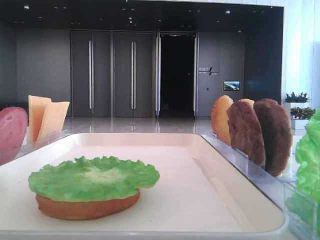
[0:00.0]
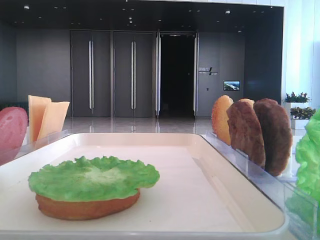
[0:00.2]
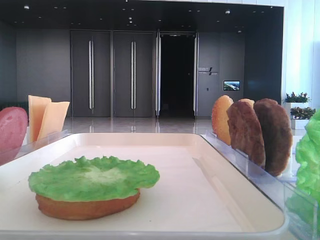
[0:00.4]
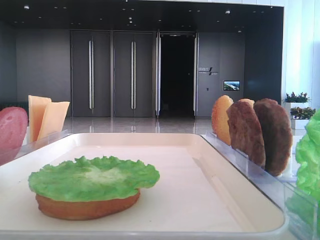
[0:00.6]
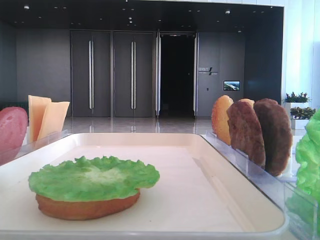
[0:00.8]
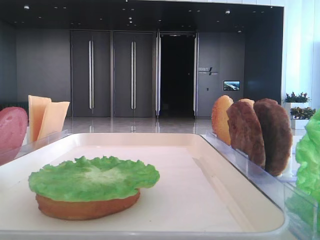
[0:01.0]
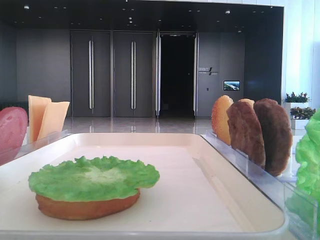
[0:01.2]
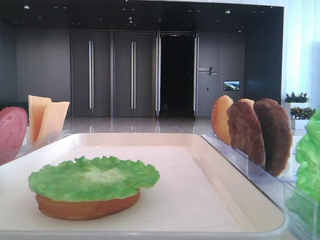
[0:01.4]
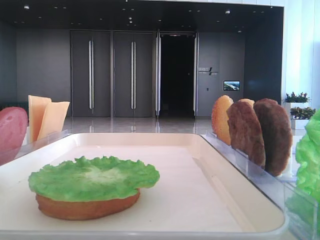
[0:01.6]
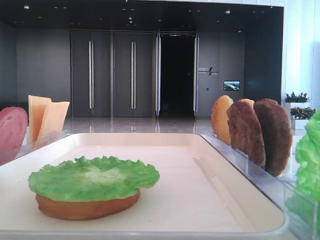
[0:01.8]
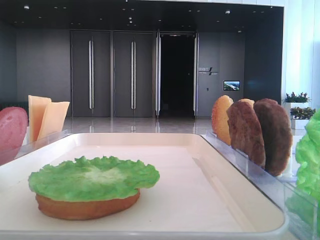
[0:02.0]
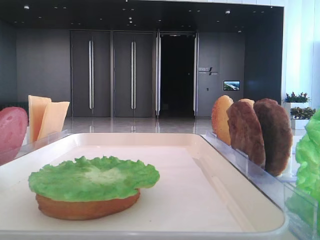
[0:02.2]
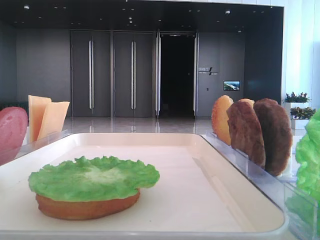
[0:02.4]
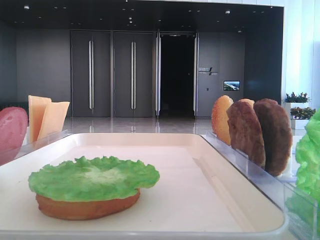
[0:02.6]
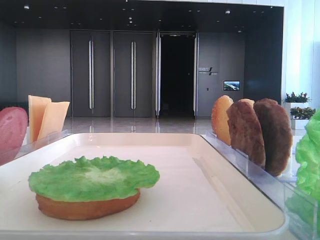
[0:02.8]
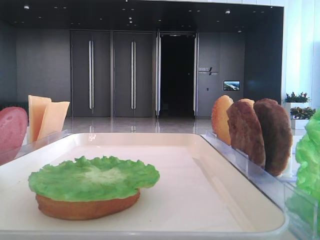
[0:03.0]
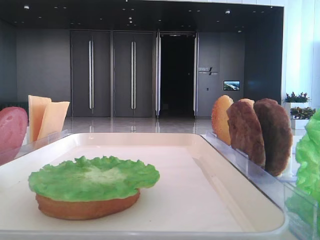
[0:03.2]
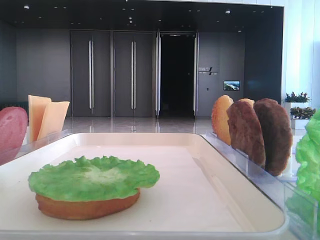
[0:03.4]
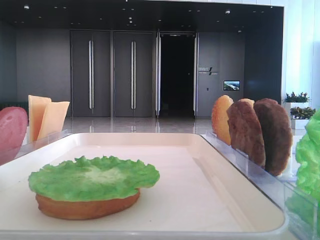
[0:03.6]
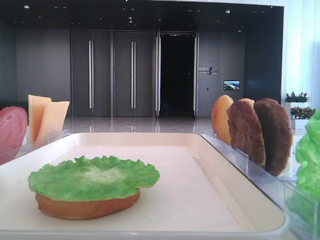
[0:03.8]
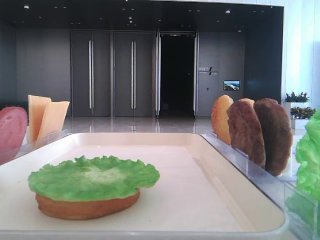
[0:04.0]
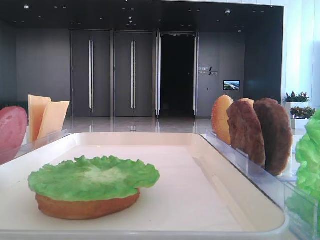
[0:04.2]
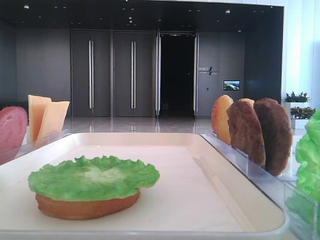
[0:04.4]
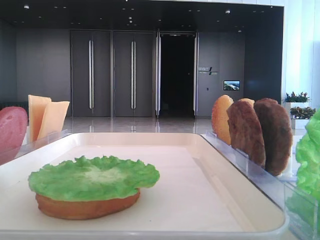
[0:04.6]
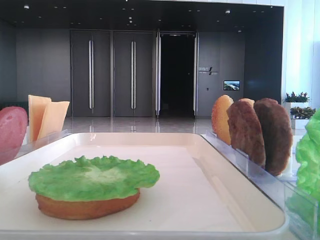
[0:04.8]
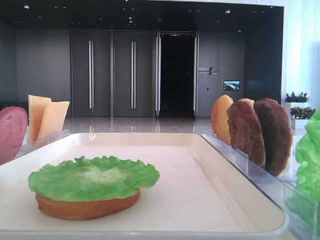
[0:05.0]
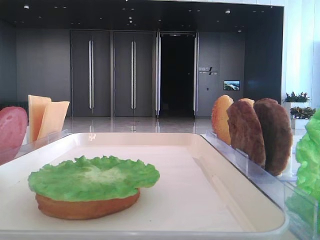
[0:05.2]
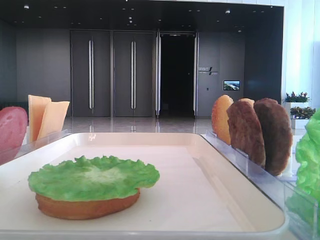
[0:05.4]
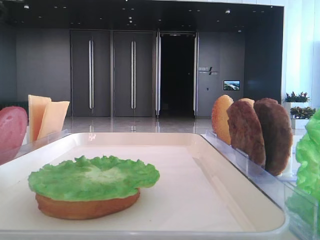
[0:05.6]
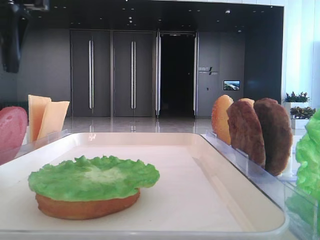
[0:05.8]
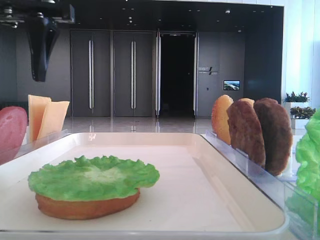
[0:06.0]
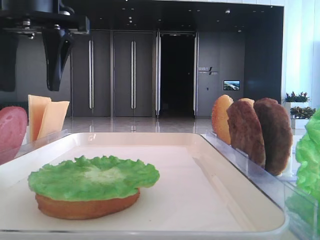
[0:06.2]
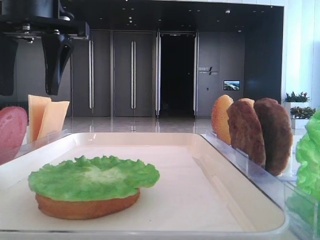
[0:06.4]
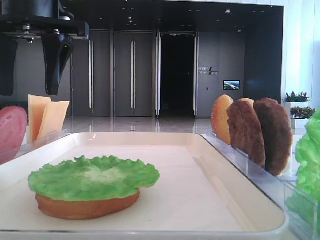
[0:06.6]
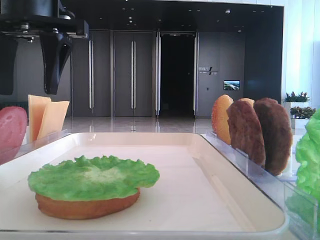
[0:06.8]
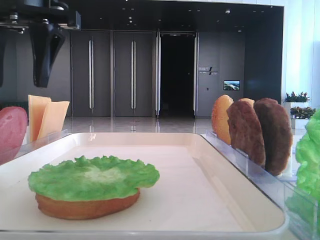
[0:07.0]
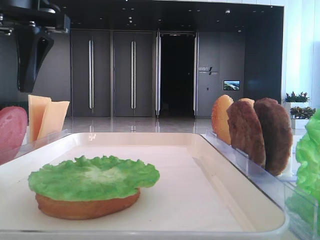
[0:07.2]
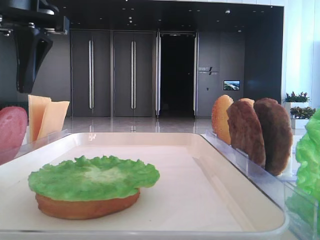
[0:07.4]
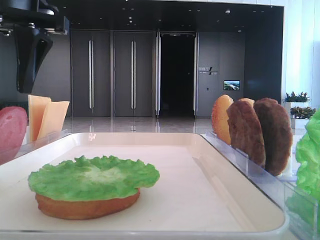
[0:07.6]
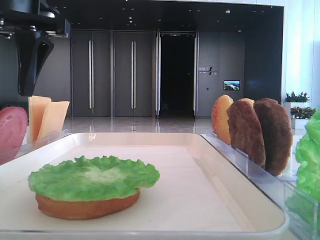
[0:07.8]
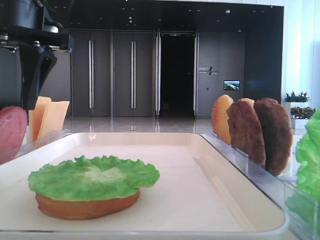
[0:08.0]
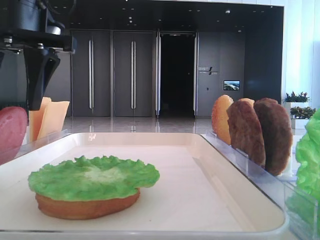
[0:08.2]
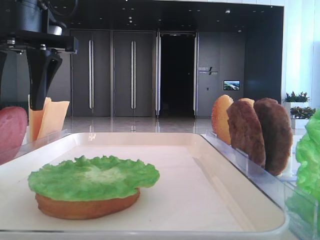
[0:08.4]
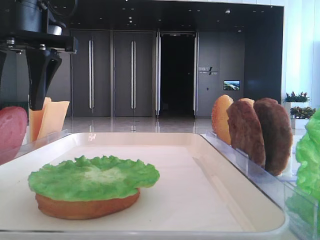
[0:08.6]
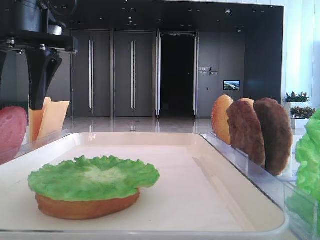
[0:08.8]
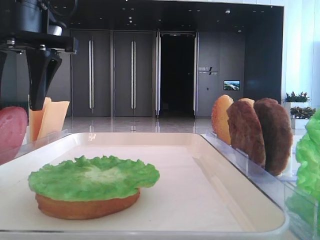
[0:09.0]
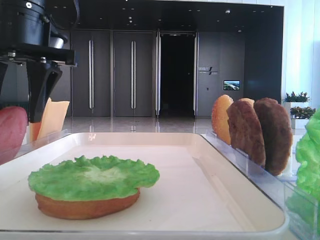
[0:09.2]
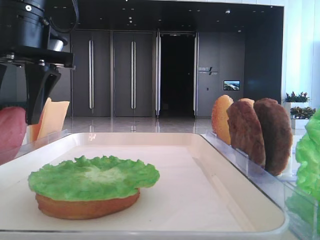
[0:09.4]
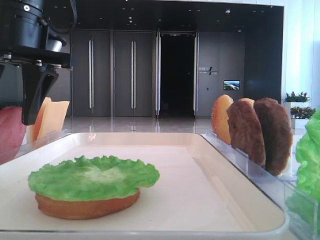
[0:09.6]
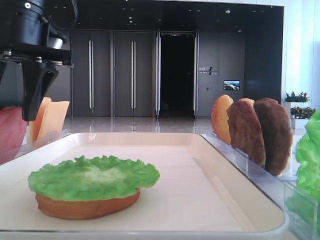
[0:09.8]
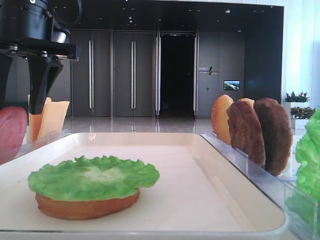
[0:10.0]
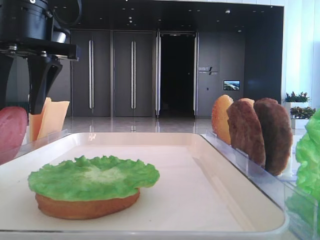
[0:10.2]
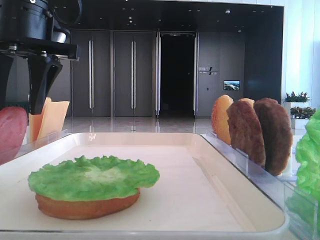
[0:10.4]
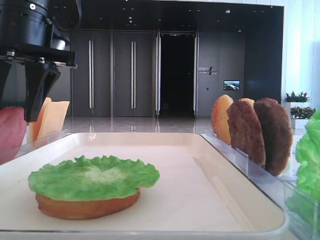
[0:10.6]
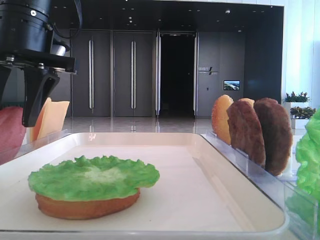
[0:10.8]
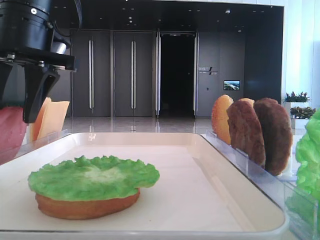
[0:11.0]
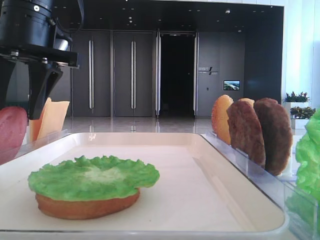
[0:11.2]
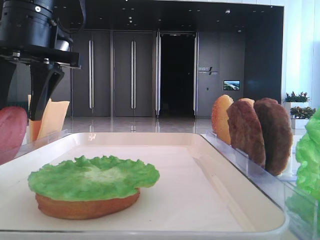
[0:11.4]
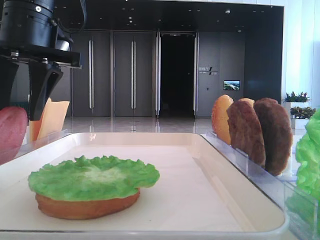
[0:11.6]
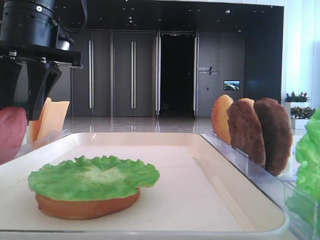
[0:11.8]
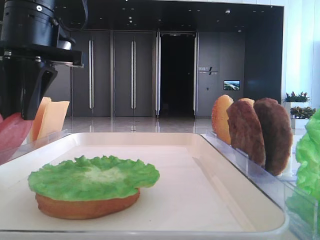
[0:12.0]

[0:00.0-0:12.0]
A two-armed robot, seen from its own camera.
0:04.4 to 0:06.0: The left gripper is displaced to the right and forward by about 20 cm.
0:06.0 to 0:10.4: The grippers stay close to where they were, moving slightly.
0:10.4 to 0:12.0: The left gripper closes its fingers.

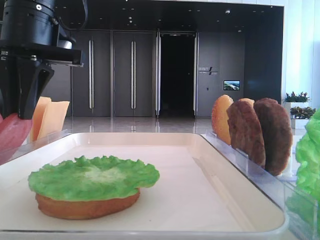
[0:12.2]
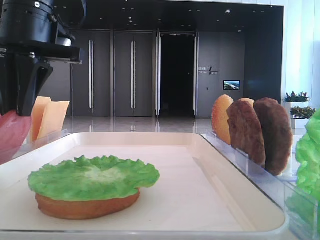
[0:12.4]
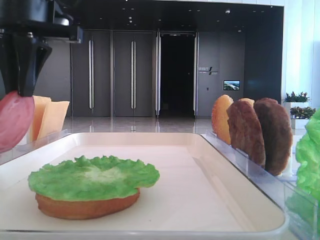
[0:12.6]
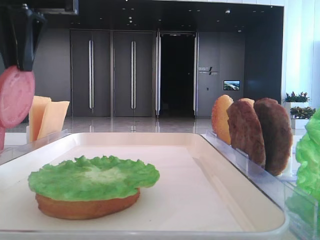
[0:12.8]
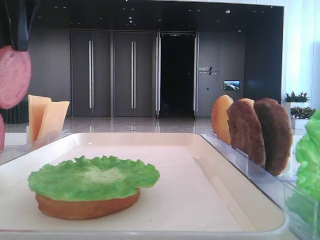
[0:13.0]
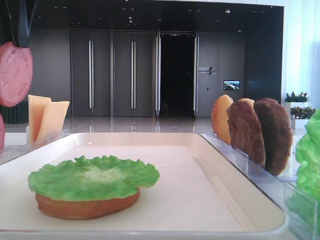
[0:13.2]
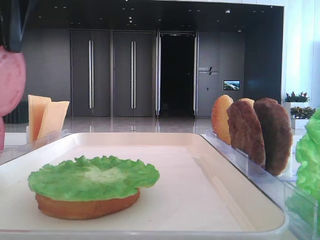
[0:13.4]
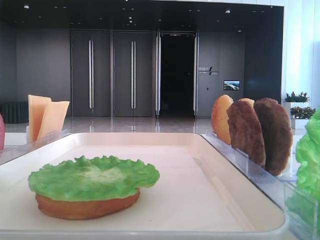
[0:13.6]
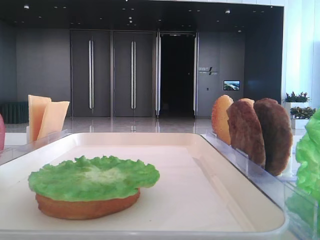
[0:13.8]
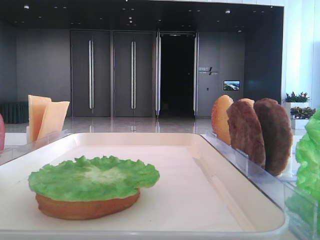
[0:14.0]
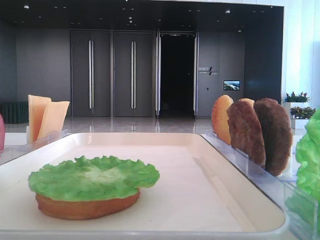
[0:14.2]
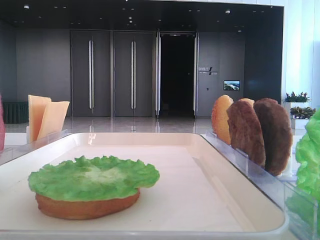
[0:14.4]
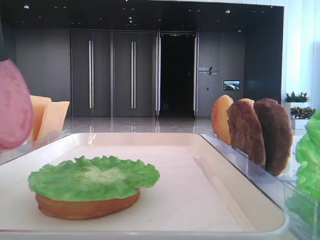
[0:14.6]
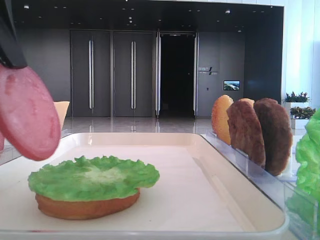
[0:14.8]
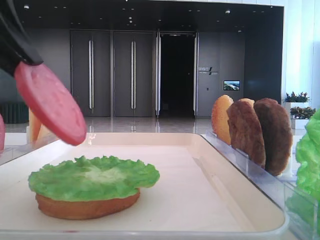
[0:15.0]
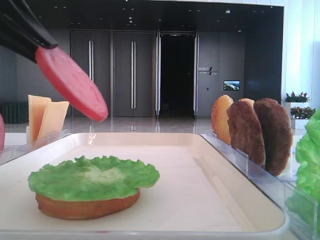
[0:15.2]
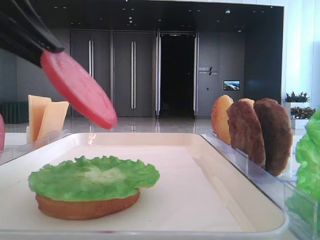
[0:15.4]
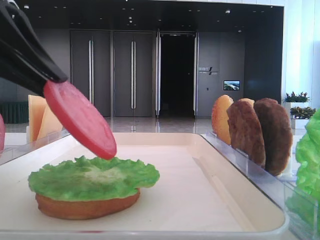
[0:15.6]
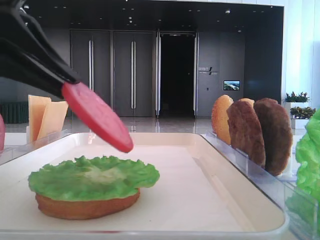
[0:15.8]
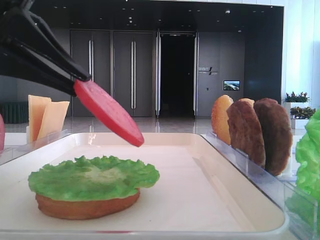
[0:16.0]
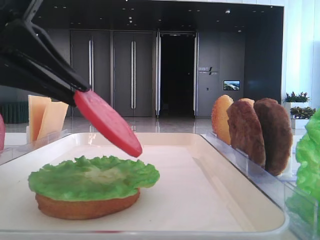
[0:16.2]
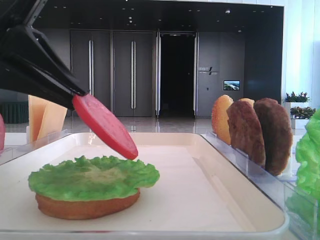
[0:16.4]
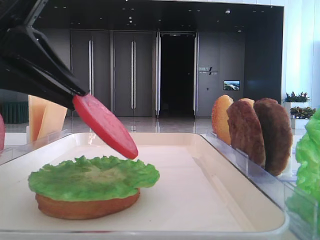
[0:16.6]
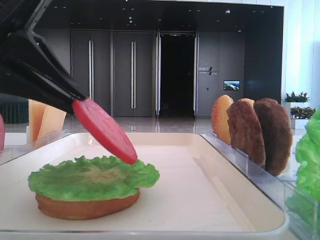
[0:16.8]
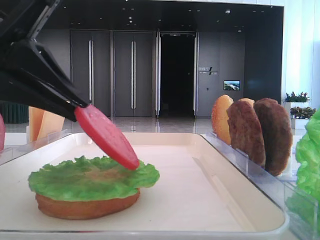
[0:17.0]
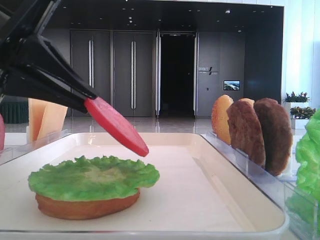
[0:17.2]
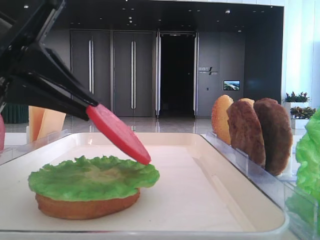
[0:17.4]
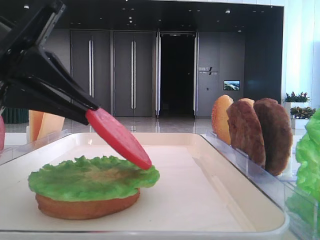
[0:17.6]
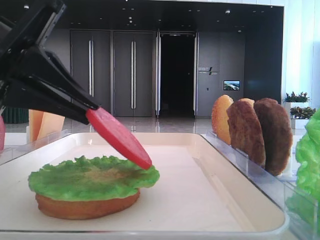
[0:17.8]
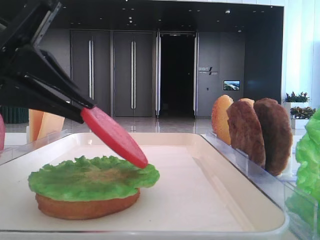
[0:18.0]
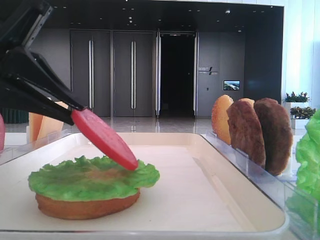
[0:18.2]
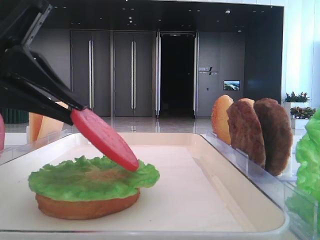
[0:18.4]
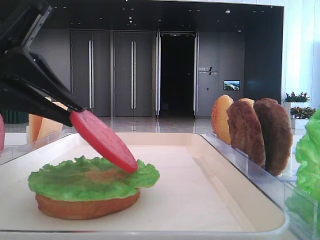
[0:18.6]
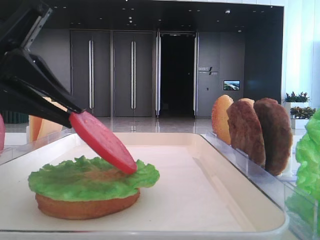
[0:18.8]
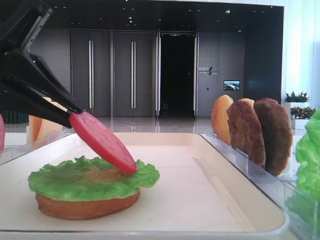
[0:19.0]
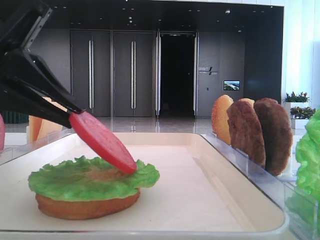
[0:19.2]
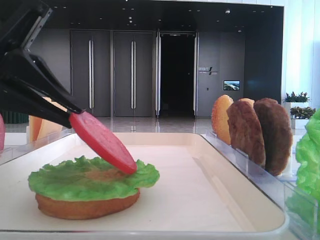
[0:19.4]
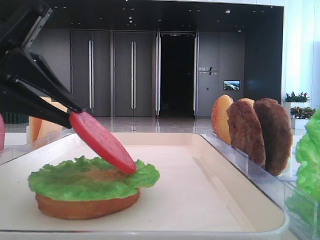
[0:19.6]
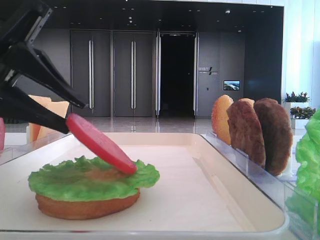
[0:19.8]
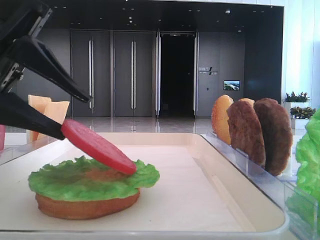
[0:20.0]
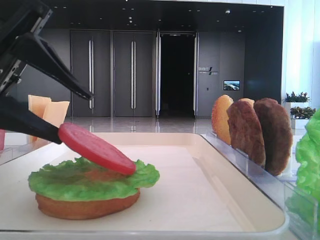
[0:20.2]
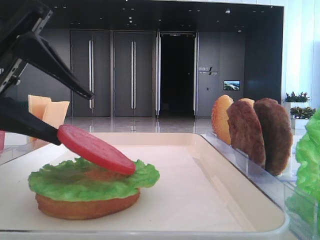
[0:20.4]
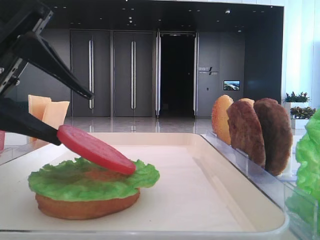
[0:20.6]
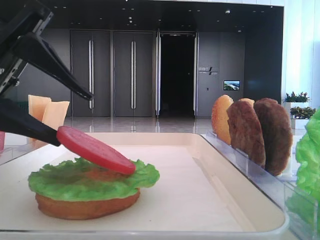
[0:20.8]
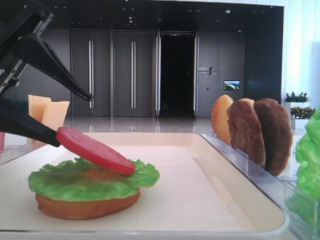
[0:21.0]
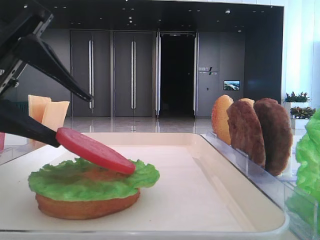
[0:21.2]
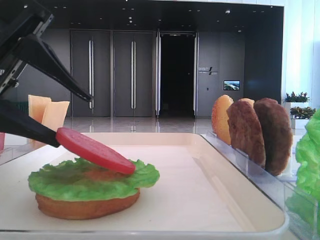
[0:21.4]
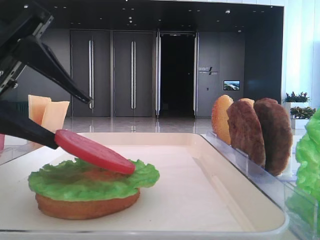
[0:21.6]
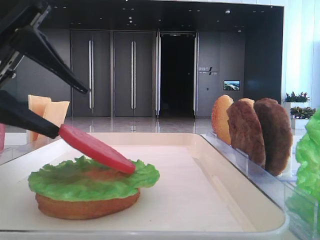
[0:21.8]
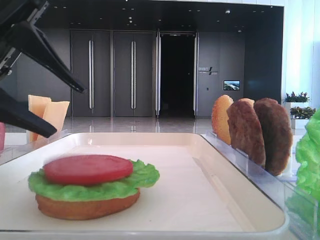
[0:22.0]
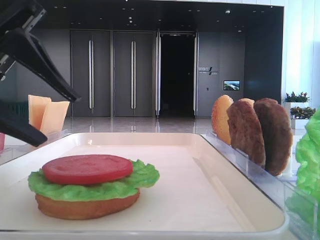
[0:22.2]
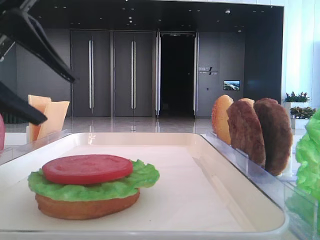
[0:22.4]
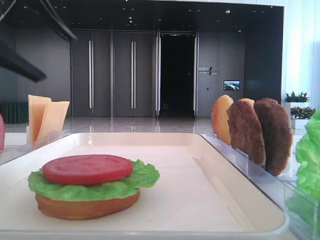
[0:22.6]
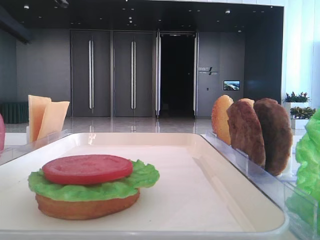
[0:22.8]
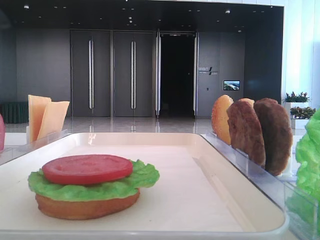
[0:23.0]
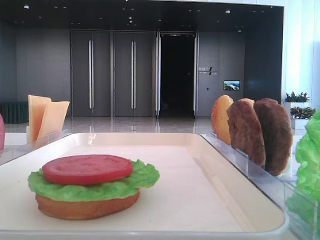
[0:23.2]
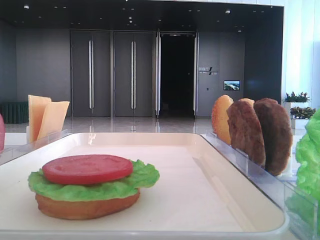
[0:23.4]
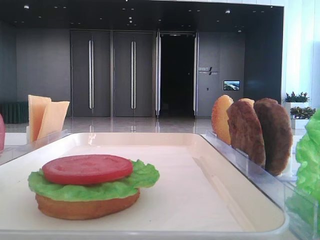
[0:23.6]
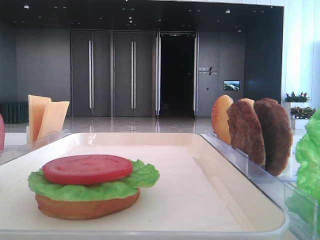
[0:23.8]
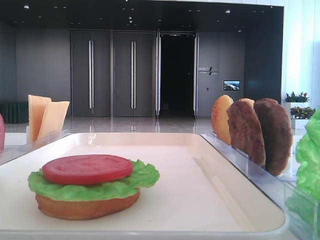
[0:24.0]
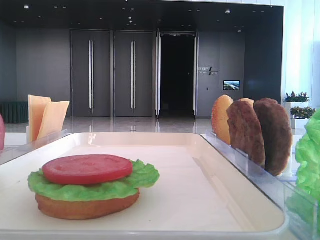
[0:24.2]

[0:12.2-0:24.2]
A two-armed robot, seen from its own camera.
Step, 0:12.4 to 0:21.8: Place the tomato slice on the lettuce leaf with the left hand.
0:12.2 to 0:13.8: The left gripper heads backward and upward, covering about 15 cm.
0:13.8 to 0:15.2: The left gripper travels downward by about 5 cm.
0:15.2 to 0:16.6: The left gripper shifts by approximately 5 cm.
0:16.6 to 0:18.2: The grippers move only a little.
0:18.2 to 0:19.8: The left gripper opens.
0:19.8 to 0:21.2: The left gripper opens its fingers.
0:21.2 to 0:22.6: The left gripper goes roughly 5 cm upward.
0:22.6 to 0:24.2: The left gripper moves upward and to the left, some 15 cm.
